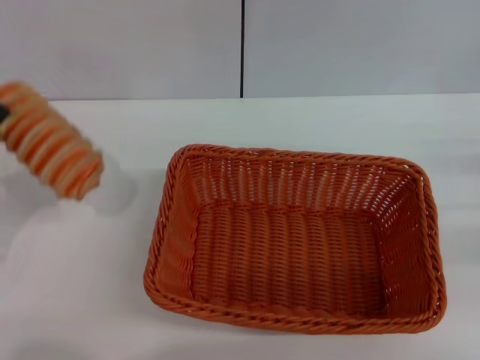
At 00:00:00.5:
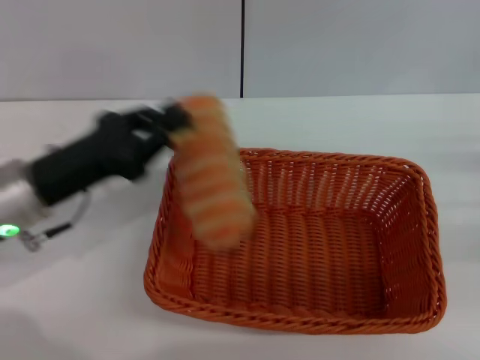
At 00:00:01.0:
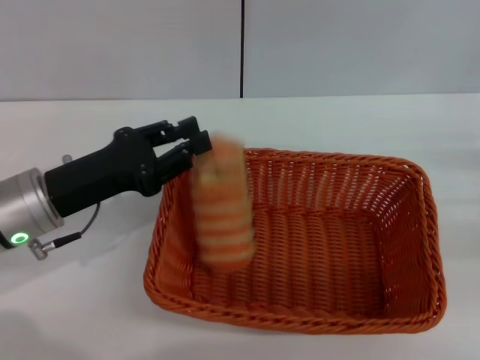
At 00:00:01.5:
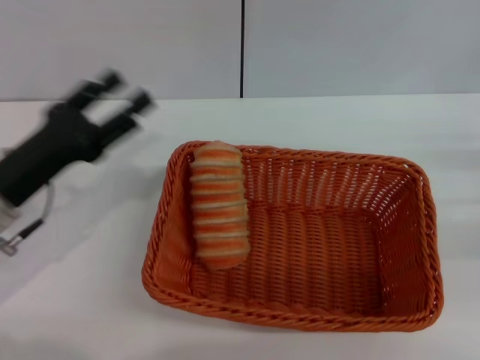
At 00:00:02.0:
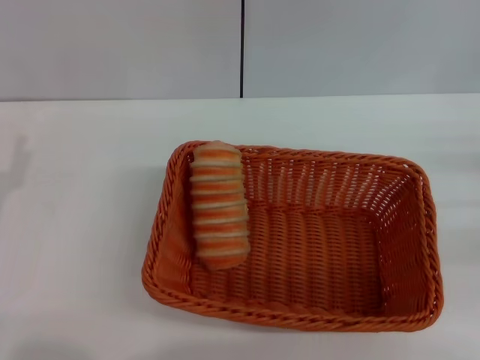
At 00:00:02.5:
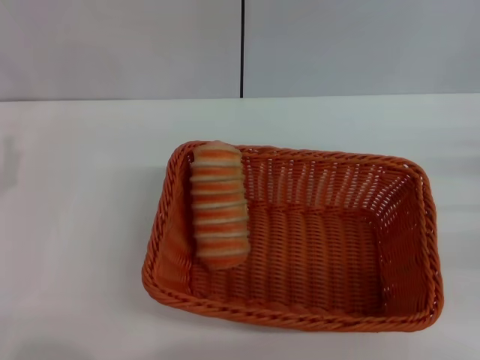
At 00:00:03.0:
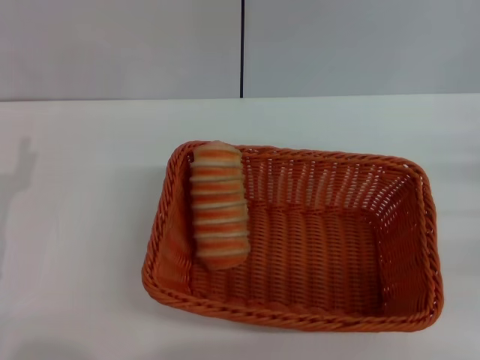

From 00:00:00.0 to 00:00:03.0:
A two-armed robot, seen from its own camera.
Step, from 00:00:00.5 to 00:00:01.0: Place the long bread into the light basket with the left gripper.
From 00:00:00.0 to 00:00:01.5: The left gripper heads to the right, covering about 10 cm, and opens.
From 00:00:01.5 to 00:00:03.0: The left gripper shifts by approximately 5 cm.
